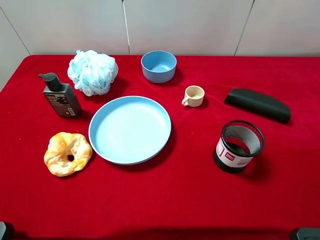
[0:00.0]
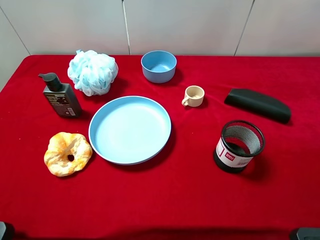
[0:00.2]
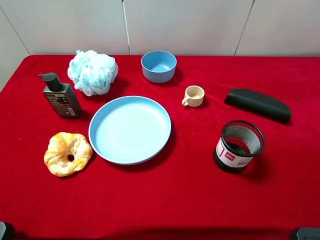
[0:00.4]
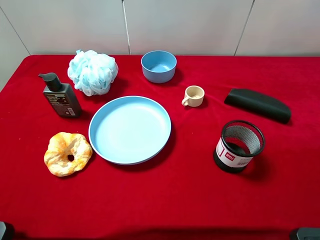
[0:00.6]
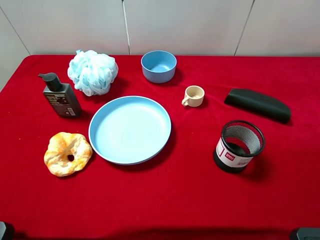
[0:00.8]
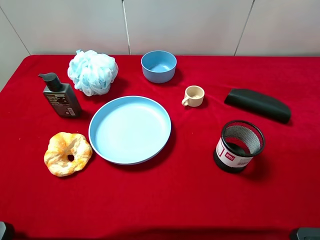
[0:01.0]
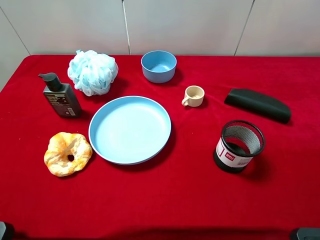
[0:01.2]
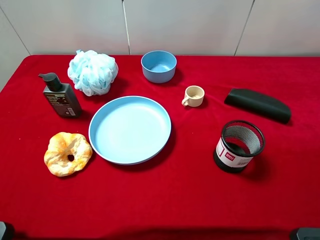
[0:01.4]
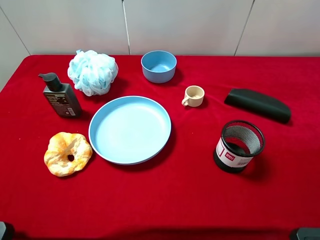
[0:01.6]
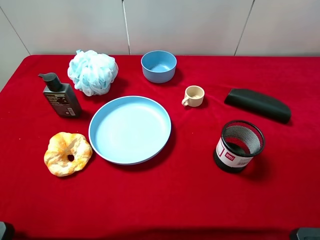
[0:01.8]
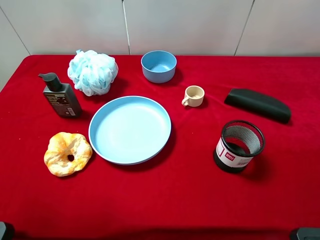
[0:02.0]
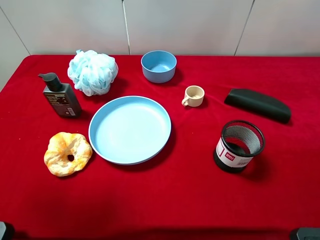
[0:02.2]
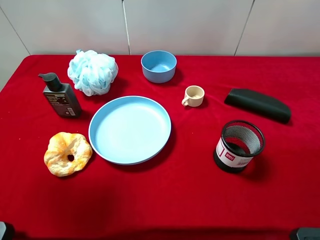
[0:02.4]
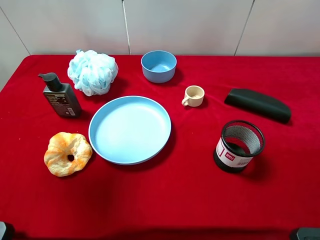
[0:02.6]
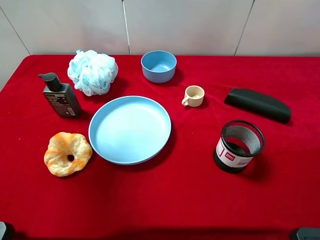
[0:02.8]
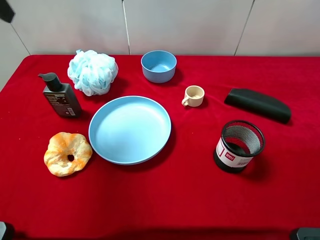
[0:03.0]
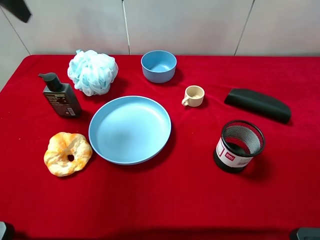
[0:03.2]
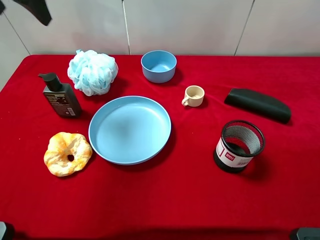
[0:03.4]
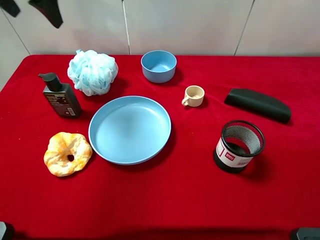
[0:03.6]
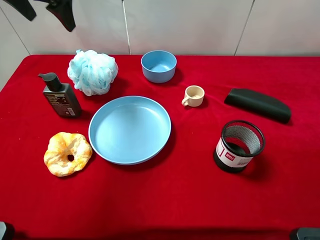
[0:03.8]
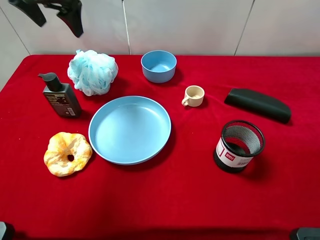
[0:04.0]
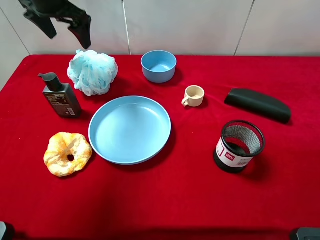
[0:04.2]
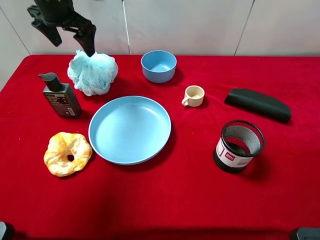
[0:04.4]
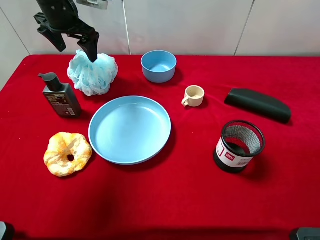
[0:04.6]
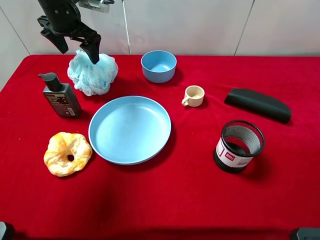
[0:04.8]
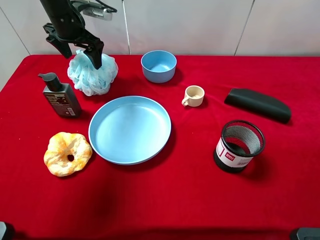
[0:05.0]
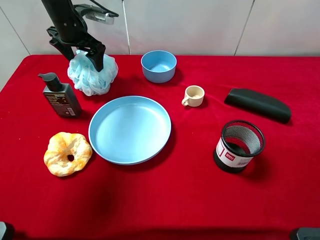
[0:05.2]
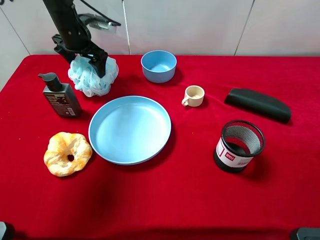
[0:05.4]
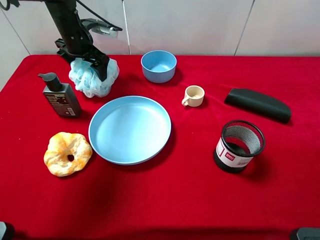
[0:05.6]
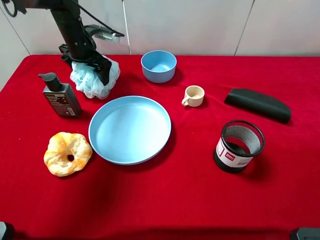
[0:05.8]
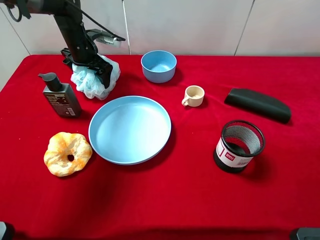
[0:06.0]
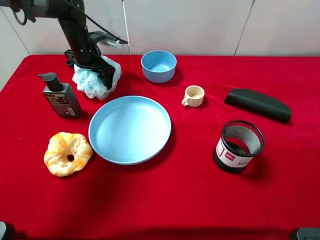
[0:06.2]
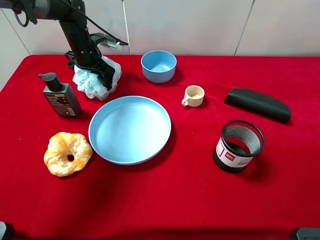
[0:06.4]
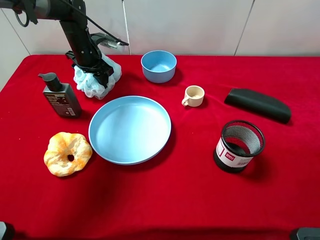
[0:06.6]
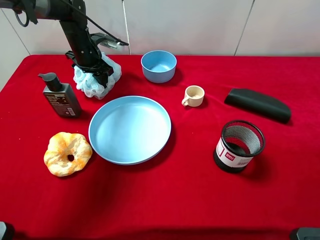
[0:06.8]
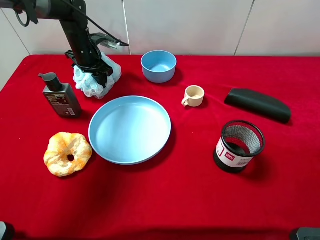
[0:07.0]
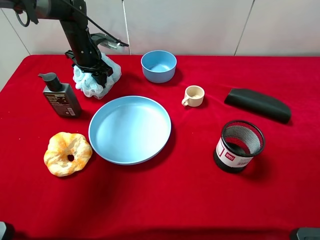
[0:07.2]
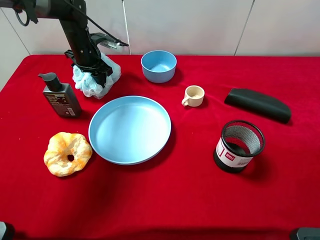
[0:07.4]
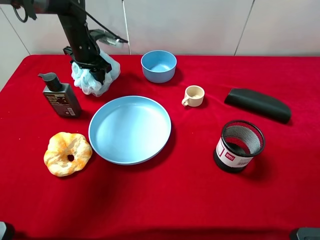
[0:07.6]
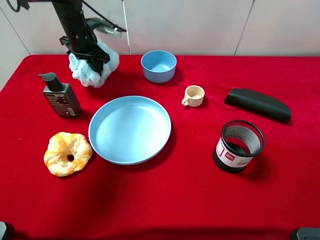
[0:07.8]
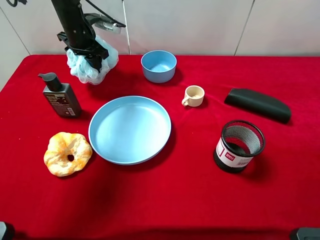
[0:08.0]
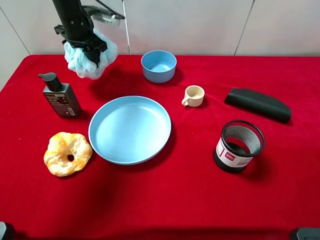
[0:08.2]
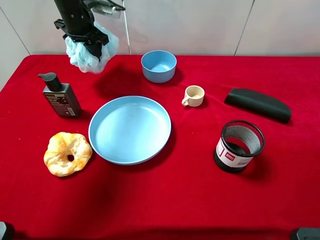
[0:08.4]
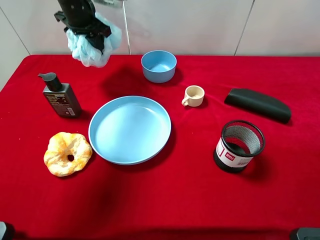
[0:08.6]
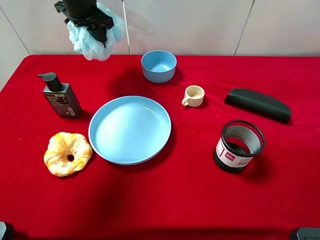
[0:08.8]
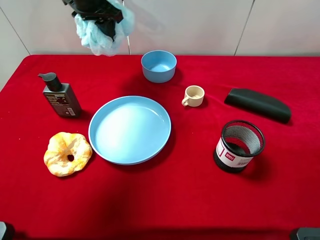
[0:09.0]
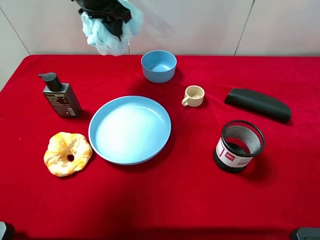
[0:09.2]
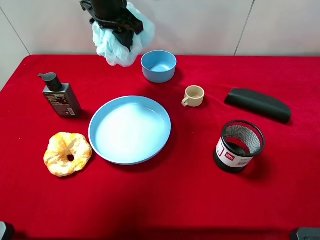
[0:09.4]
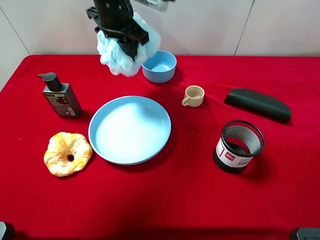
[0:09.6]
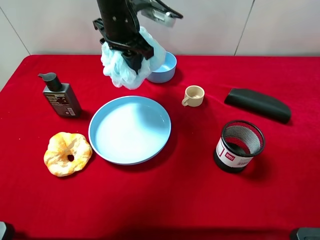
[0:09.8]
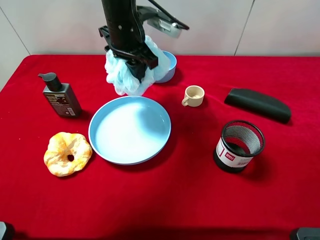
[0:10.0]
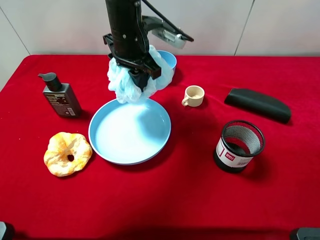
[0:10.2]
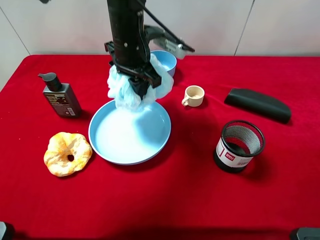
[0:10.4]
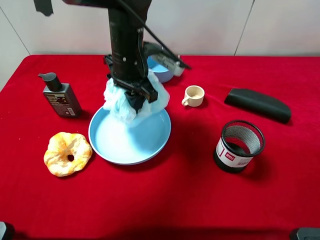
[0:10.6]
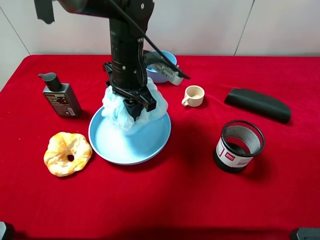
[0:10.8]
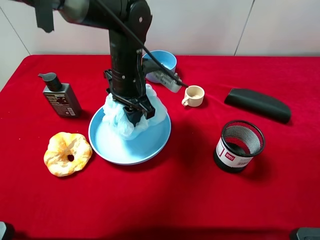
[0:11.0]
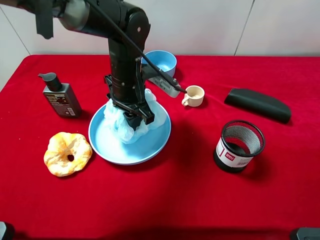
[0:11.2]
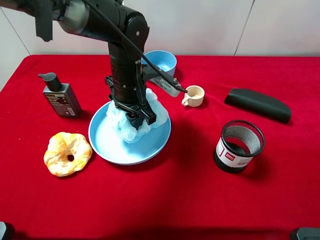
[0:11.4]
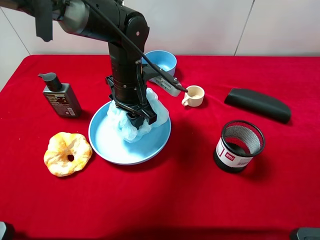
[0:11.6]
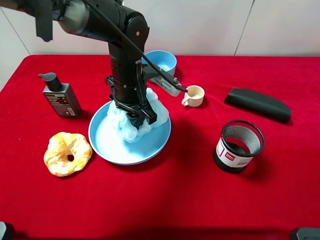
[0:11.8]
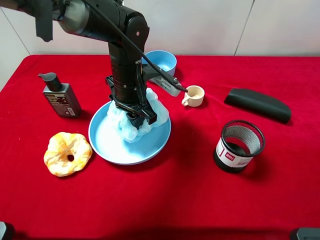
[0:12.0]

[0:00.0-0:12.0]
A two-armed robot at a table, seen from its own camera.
Task of the whole recording: pick up an item with a gripper and place it in a random container on the desktop.
0:01.6 to 0:03.0: The left gripper travels forward by roughly 25 cm.
0:03.0 to 0:04.4: The left gripper travels forward, downward and to the right by roughly 20 cm.
0:04.4 to 0:06.0: The left gripper goes some 10 cm downward.
0:06.0 to 0:07.6: The left gripper closes its fingers.
0:07.6 to 0:09.0: The left gripper shifts some 15 cm upward and to the right.
0:09.0 to 0:10.4: The left gripper heads backward, to the right and downward, covering some 15 cm.
0:10.4 to 0:12.0: The left gripper shifts about 5 cm downward.

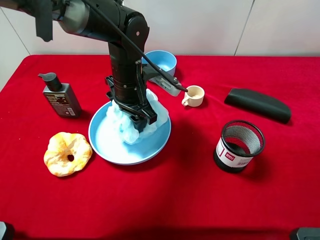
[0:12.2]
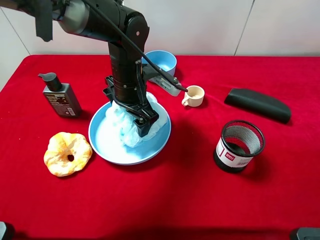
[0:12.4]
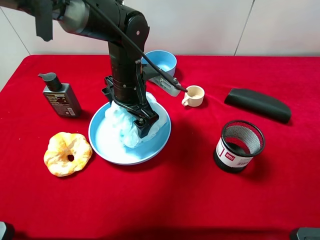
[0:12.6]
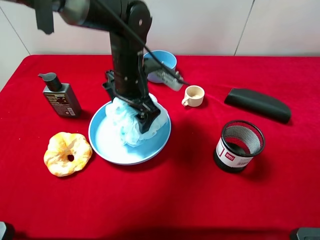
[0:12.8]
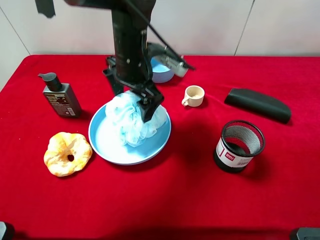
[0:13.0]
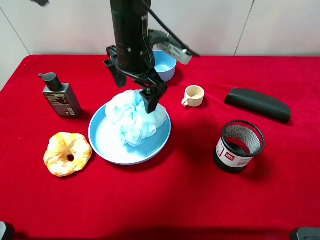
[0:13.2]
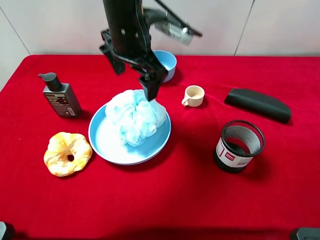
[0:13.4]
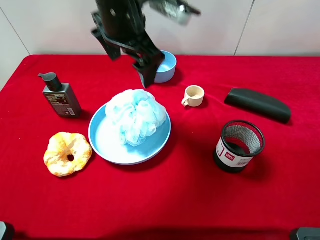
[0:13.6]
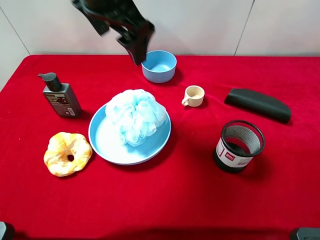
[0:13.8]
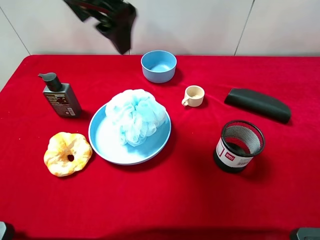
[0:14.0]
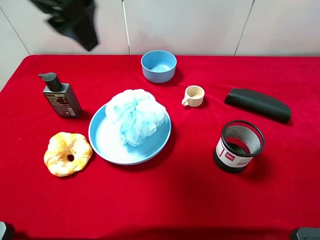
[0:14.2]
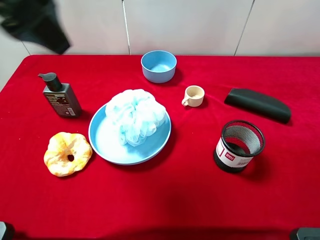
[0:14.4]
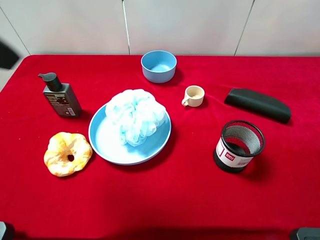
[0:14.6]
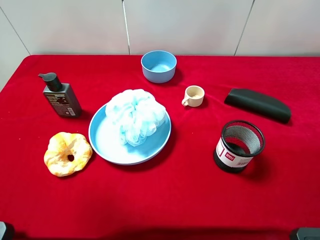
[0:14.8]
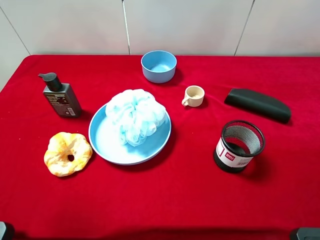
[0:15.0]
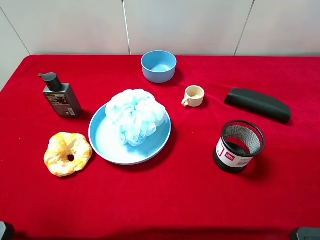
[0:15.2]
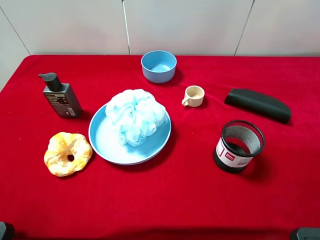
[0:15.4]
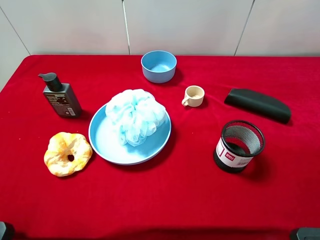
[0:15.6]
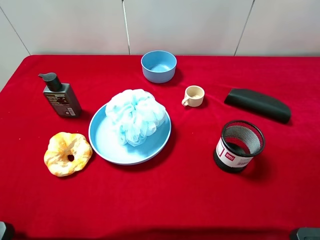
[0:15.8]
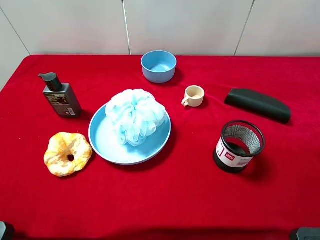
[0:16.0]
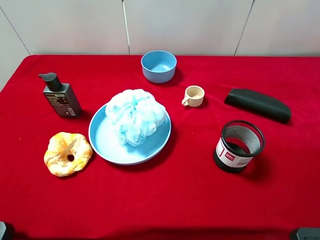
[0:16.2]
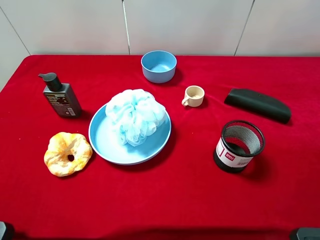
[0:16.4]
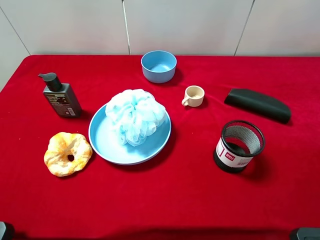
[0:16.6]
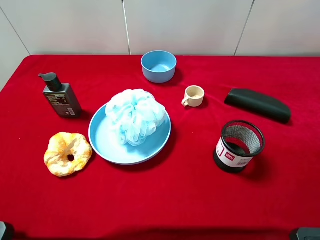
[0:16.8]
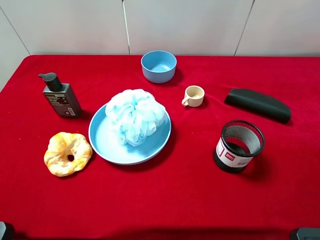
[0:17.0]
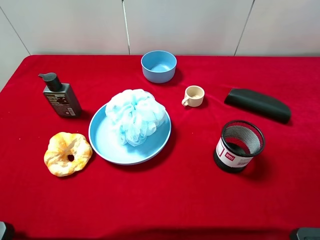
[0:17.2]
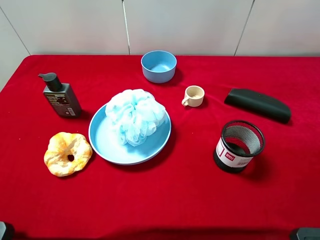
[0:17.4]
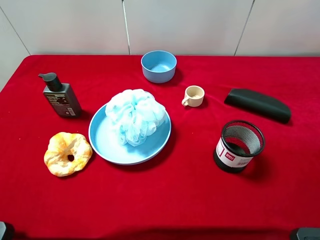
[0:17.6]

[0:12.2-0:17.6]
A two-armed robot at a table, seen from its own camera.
Task of the whole recording: pick up an item with a gripper and place it in a random container on the desktop.
0:12.2 to 0:13.6: The left gripper moves upward, about 15 cm, and opens.
0:13.6 to 0:15.0: The left gripper goes about 35 cm backward and to the left.
0:16.2 to 0:17.6: Both grippers stay about where they are.

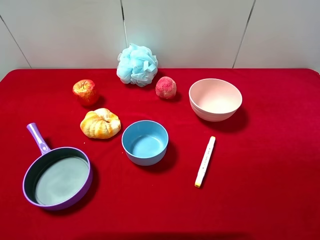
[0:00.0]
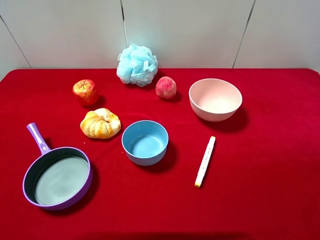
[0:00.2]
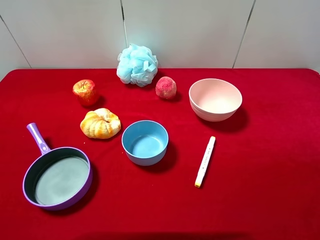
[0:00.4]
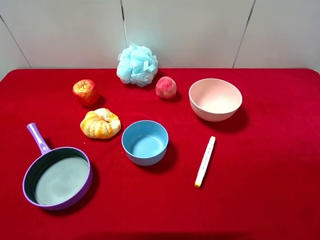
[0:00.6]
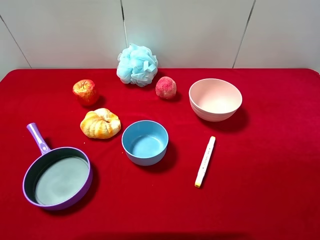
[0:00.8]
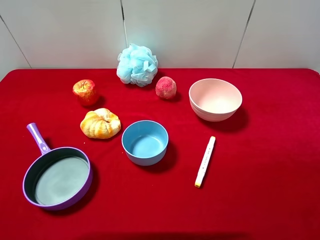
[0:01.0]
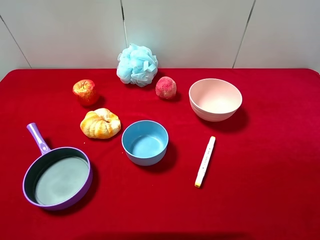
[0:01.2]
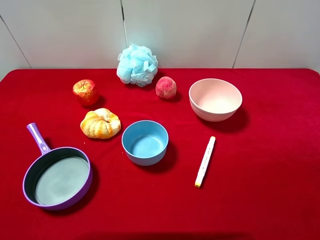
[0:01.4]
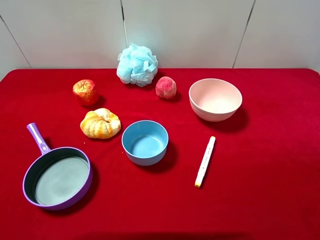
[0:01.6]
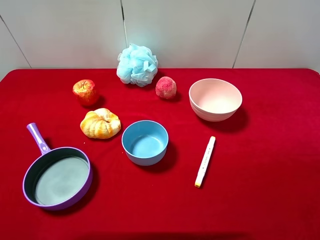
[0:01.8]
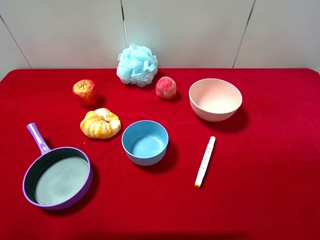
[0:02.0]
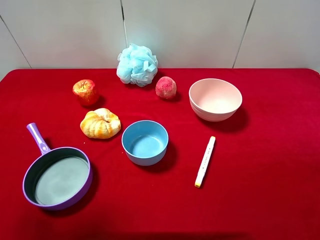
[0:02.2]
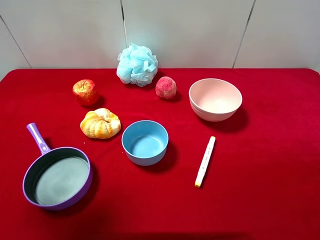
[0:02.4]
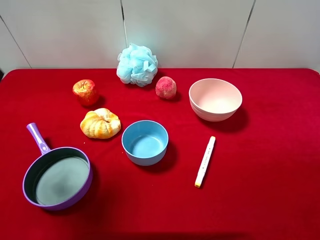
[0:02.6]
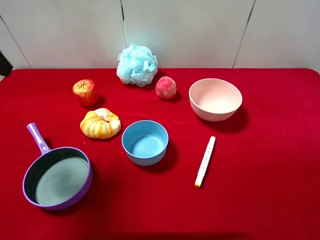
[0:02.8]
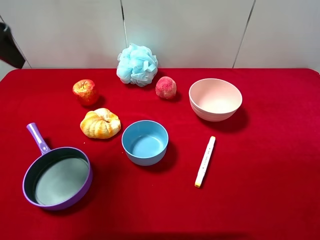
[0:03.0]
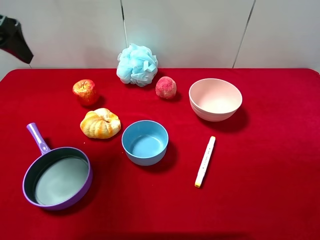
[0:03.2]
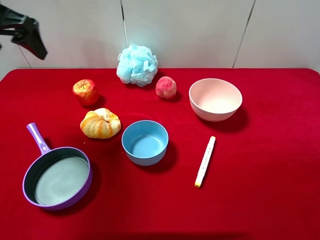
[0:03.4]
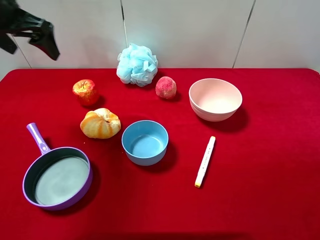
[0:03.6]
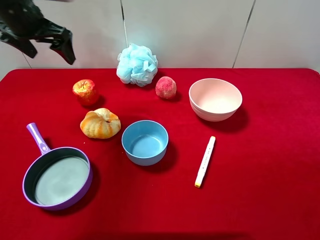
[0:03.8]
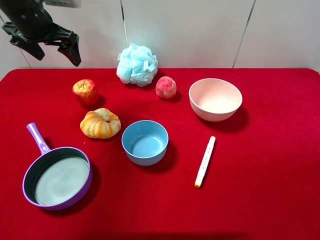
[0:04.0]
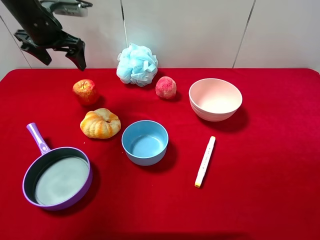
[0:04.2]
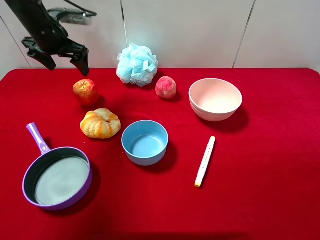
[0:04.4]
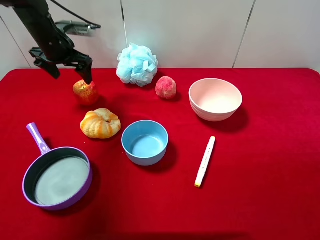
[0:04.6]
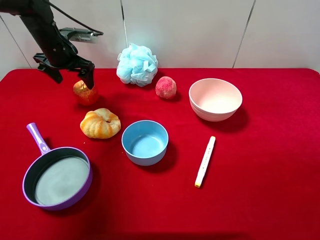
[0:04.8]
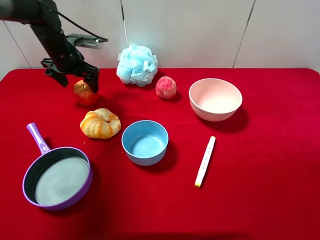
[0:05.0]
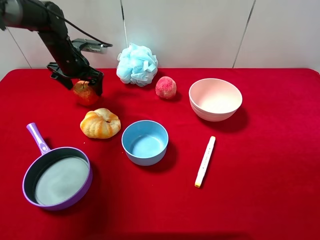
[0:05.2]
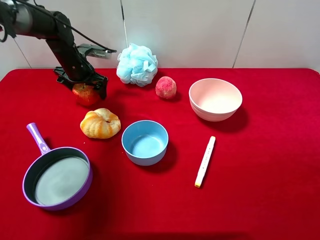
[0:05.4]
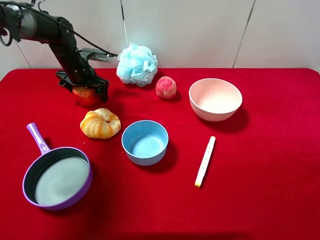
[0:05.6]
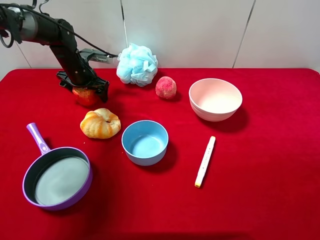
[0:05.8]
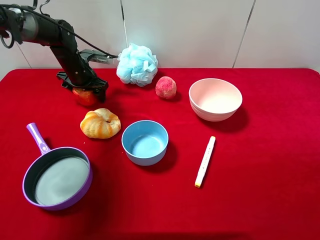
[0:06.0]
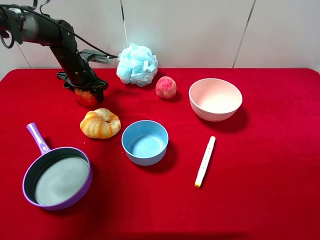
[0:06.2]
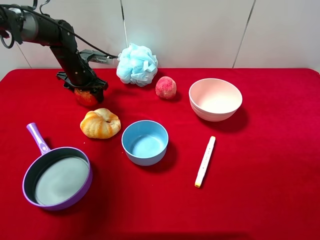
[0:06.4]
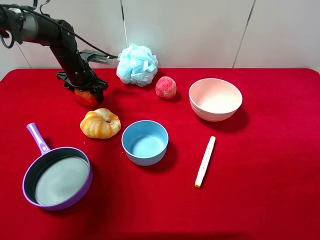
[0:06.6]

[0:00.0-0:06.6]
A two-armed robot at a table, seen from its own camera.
Task of the whole recording: pick up an item with a gripper and place it in a random container on the desktop.
0:01.6 to 0:03.2: The left gripper heads forward, covering about 25 cm.
0:03.2 to 0:05.0: The left gripper moves downward and forward, roughly 25 cm.
0:05.0 to 0:06.6: The left gripper shifts by approximately 5 cm, and closes up.
